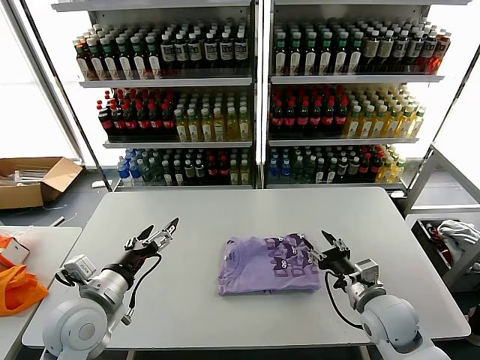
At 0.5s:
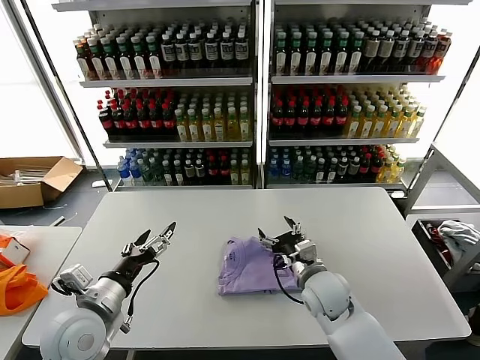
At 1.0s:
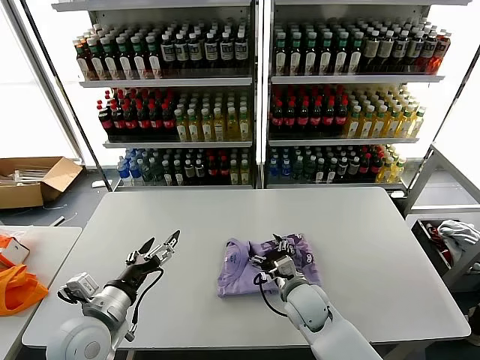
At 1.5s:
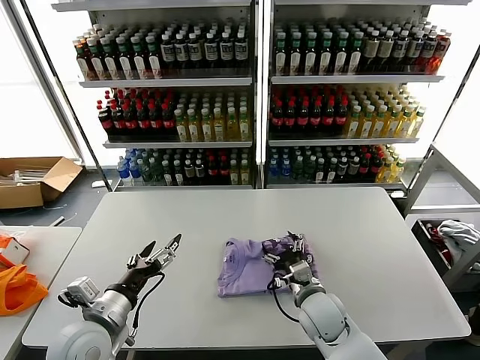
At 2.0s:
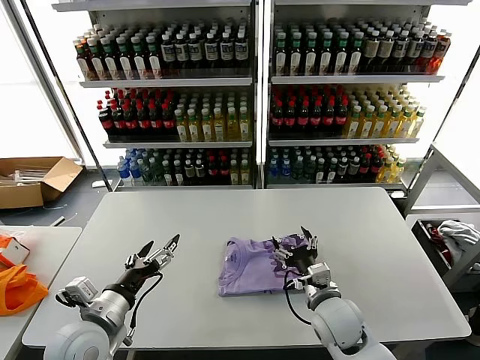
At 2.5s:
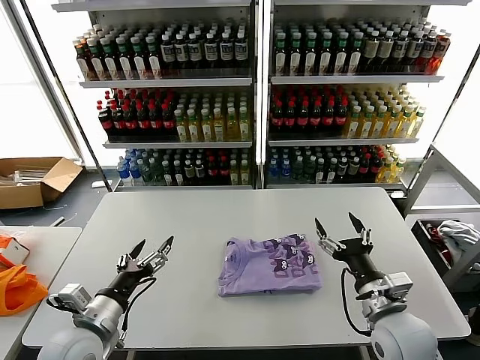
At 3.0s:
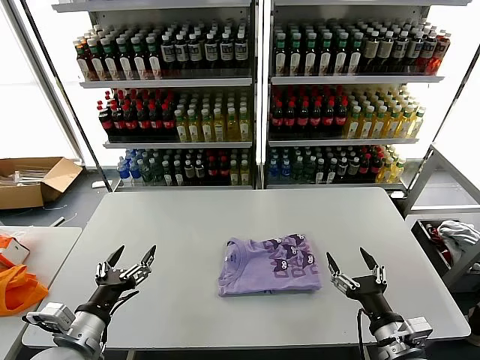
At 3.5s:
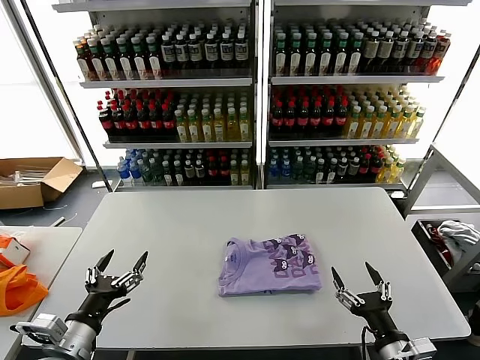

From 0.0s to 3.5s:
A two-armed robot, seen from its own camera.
Task of the whole recording: fold and organize the clothes.
Step, from 0.0s to 2.0s: Drag the clothes to the center of the table.
From 0.0s to 2.0s: The right gripper goes roughly 10 cm to the left, and opens.
From 2.0s to 3.5s: The left gripper is displaced backward by some 5 cm, while the right gripper is displaced backward and to the right by roughly 20 cm.
